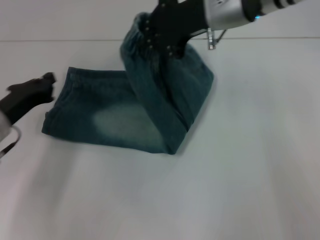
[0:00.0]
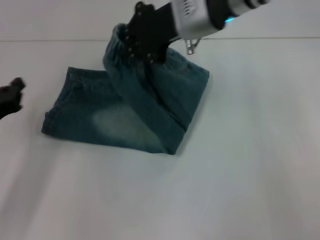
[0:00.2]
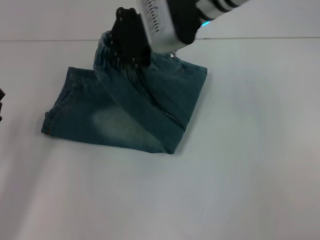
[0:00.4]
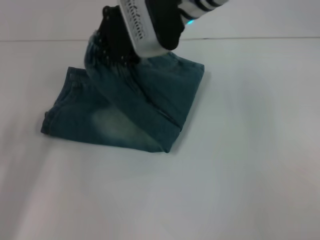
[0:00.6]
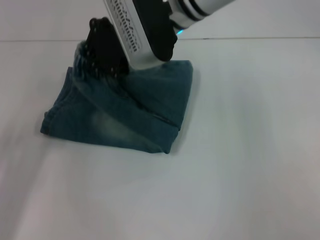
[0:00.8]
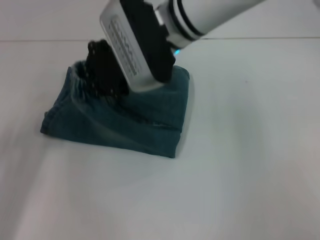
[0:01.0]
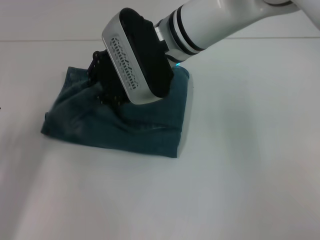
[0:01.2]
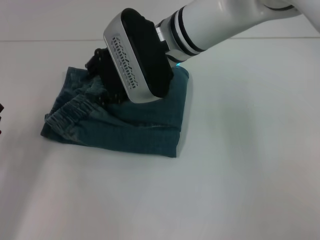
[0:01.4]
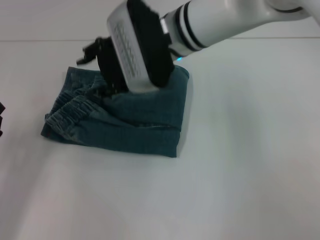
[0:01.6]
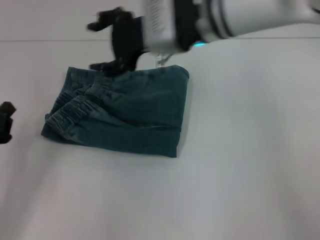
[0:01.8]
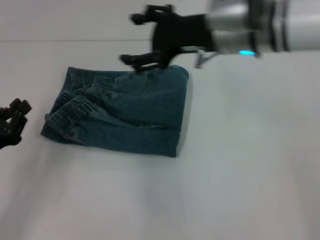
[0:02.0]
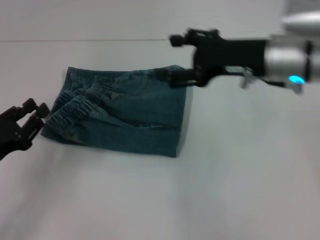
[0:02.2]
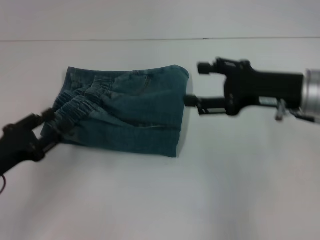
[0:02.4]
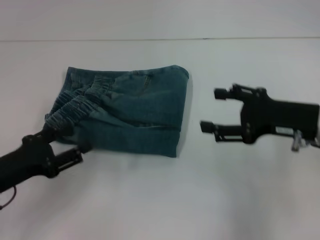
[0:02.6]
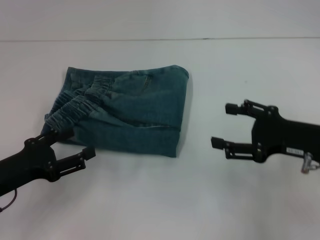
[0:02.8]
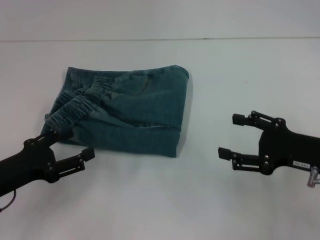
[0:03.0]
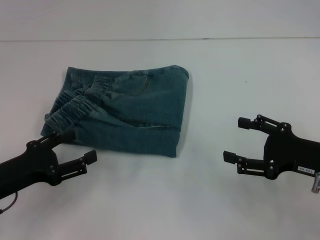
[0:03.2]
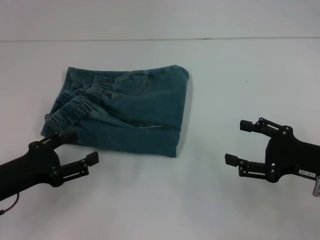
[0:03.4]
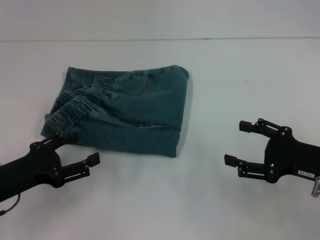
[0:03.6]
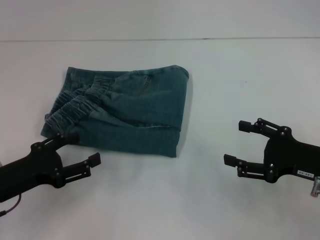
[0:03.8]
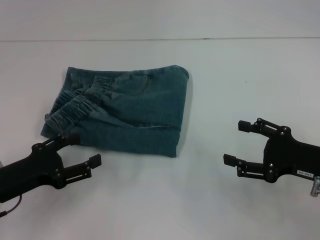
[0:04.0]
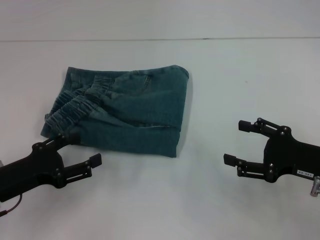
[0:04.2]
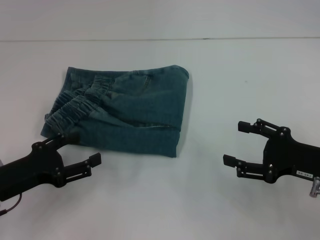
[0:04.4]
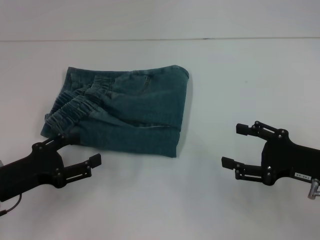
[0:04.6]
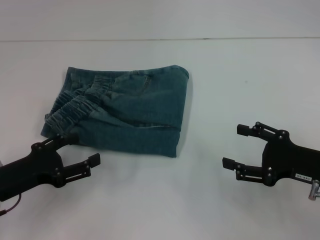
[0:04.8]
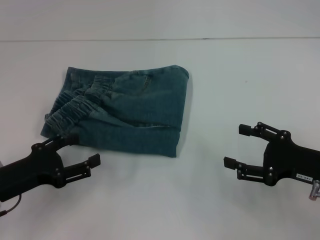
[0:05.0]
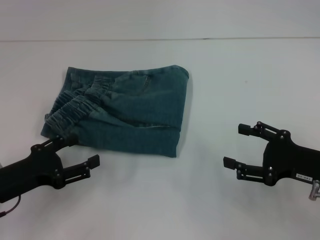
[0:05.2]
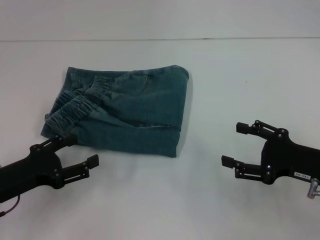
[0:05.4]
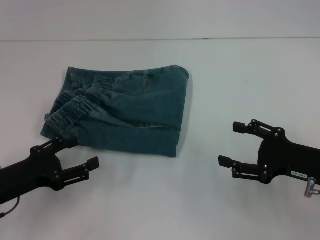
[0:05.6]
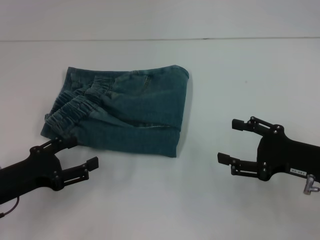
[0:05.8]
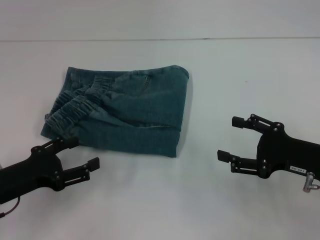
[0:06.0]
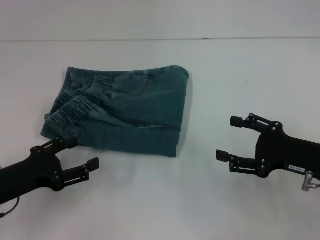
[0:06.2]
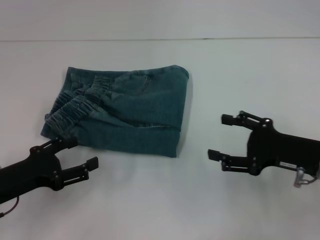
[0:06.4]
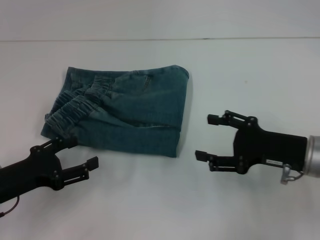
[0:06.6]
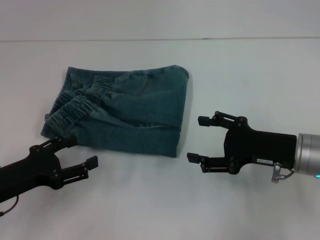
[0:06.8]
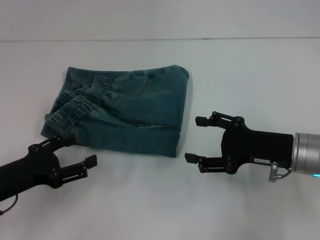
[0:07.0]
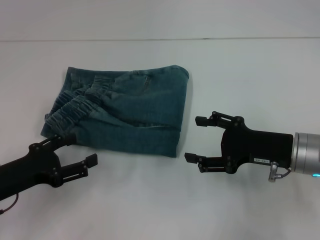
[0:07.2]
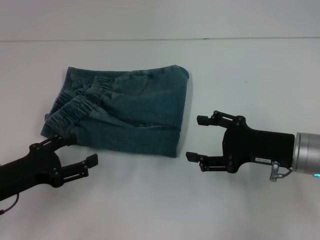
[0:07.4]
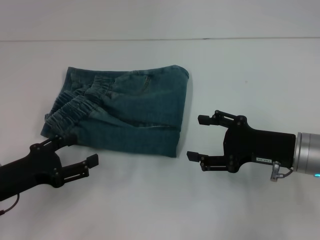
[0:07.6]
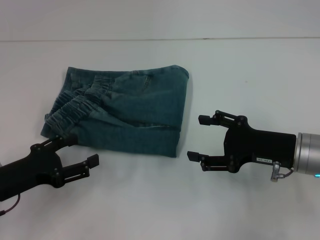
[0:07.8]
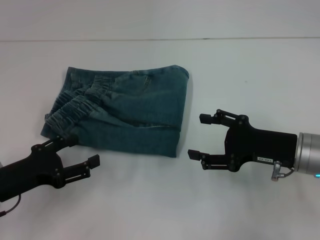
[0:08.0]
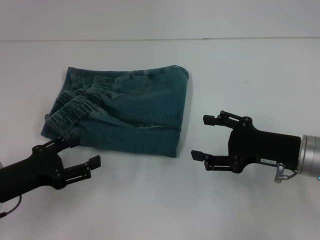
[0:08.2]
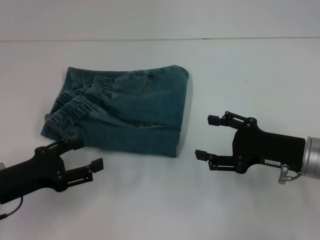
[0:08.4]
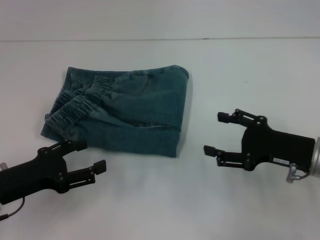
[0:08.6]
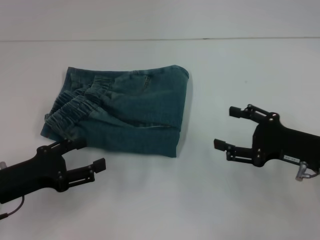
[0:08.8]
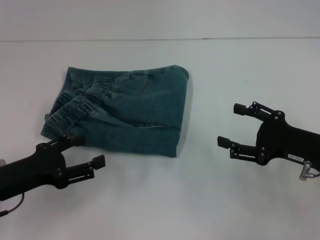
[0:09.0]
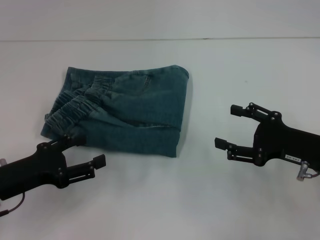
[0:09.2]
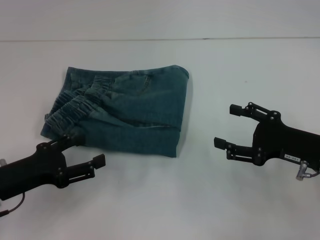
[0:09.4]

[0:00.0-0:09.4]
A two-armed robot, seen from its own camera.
Step, 0:00.0 to 0:02.0: Fold to the left with your right hand.
0:00.0 to 0:01.6: The right gripper heads to the left, covering approximately 10 cm, and opens, while the left gripper travels backward and to the left by about 10 cm.
0:01.6 to 0:03.2: The left gripper opens. Meanwhile the right gripper travels to the right, backward and downward by some 35 cm, and opens up.
0:03.2 to 0:04.8: Both grippers stay put.
0:04.8 to 0:06.2: The two grippers keep their place.
0:06.2 to 0:09.4: There are only small adjustments of the grippers.
